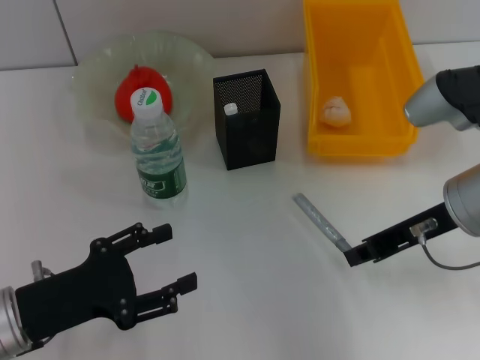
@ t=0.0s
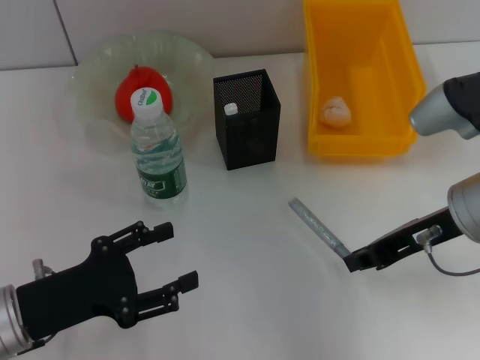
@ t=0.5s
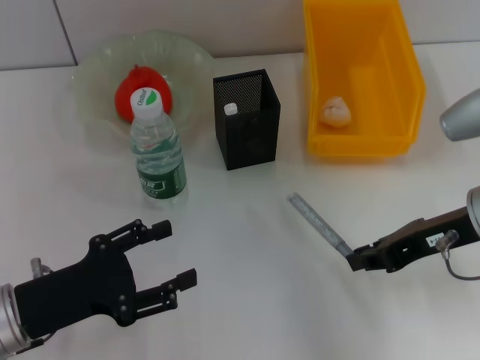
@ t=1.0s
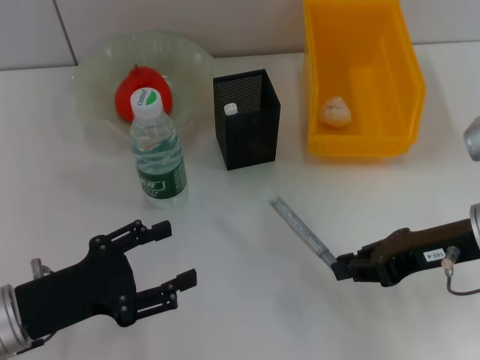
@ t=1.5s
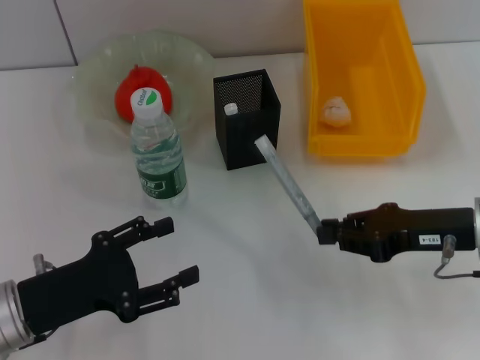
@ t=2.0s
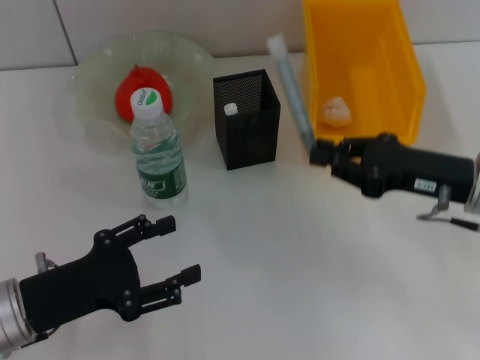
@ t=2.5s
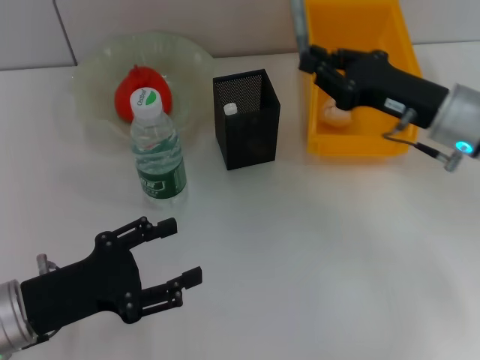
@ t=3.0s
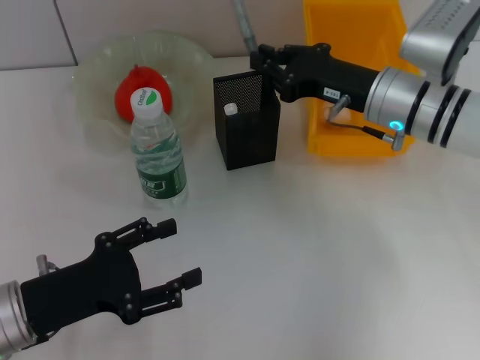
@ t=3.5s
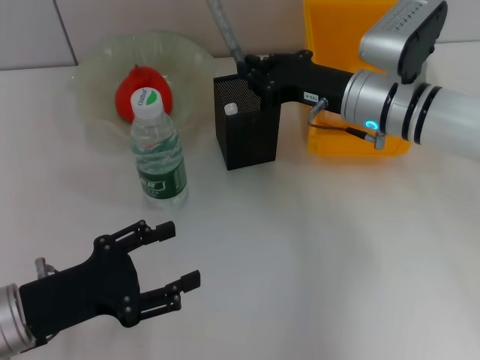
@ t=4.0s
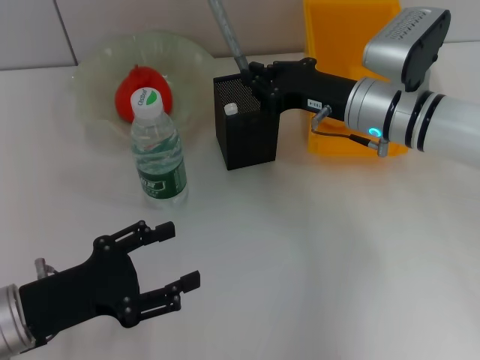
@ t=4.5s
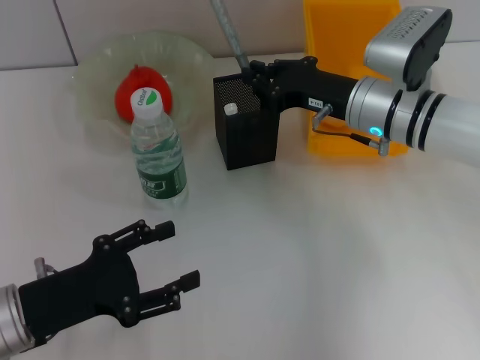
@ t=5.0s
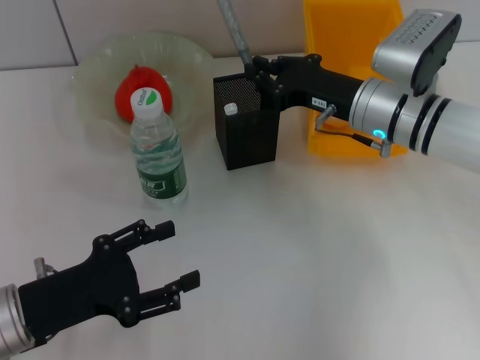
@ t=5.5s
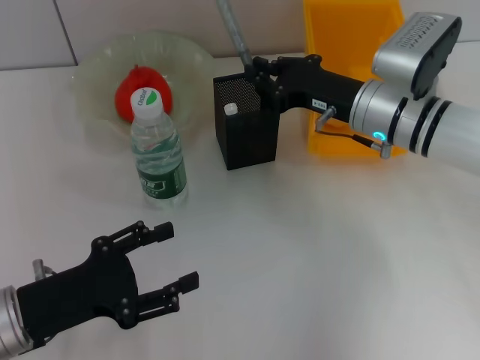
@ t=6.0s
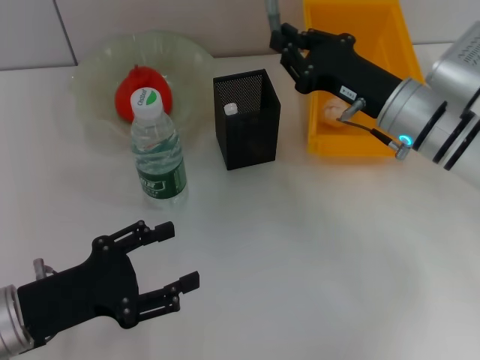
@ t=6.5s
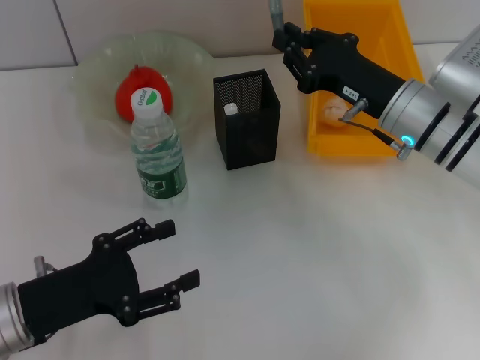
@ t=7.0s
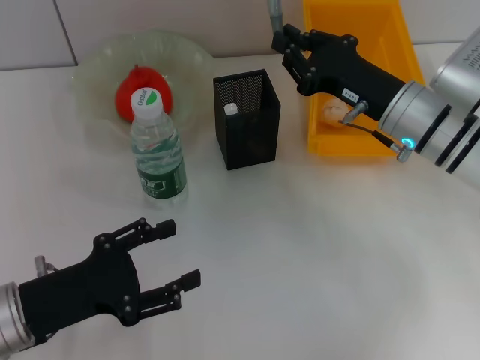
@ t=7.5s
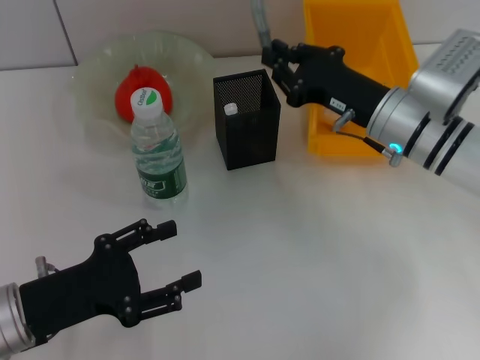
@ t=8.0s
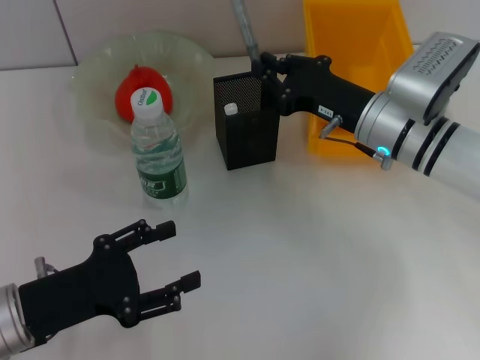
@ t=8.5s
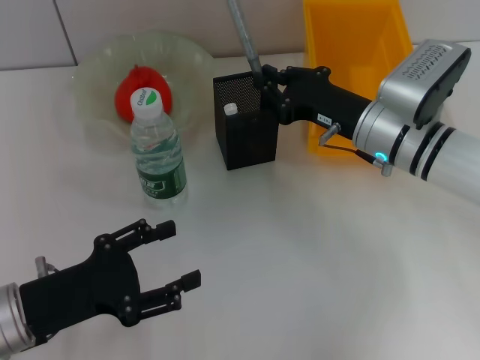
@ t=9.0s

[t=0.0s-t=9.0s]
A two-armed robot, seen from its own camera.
t=0.0s to t=2.0s: The right gripper shifts roughly 5 cm downward.
t=2.0s to t=4.5s: The right gripper goes about 15 cm forward and to the left.
t=4.5s to t=9.0s: The grippers stay close to where they were, moving slightly.

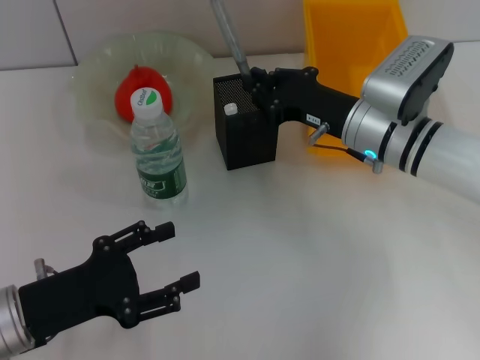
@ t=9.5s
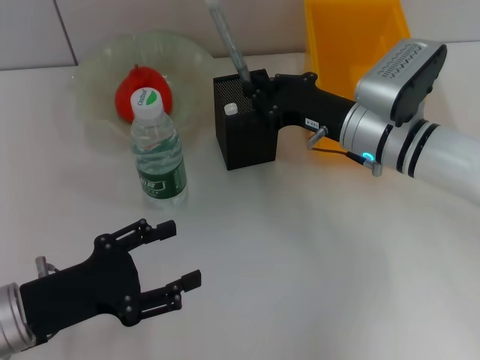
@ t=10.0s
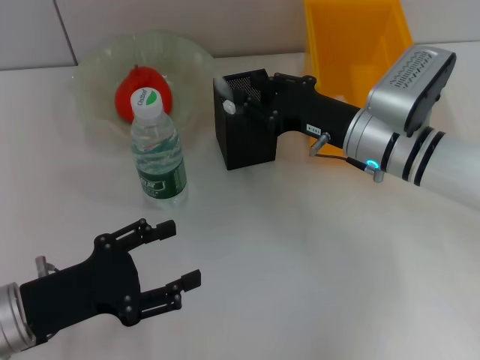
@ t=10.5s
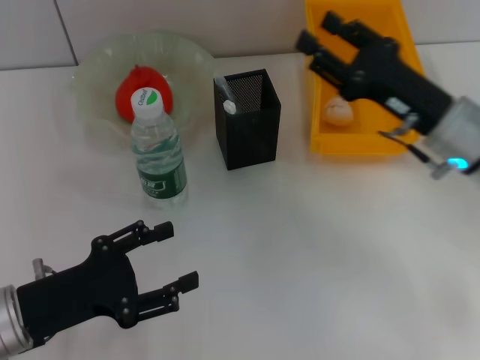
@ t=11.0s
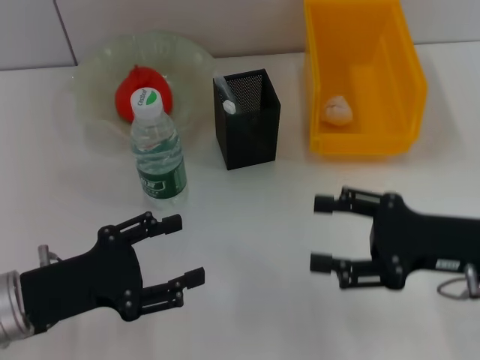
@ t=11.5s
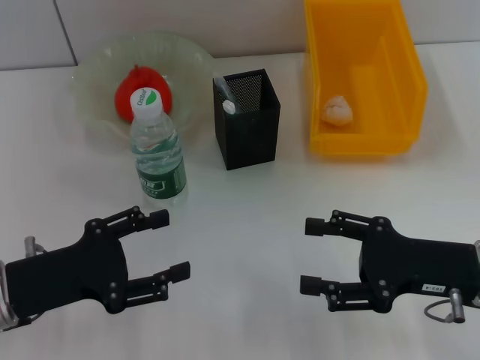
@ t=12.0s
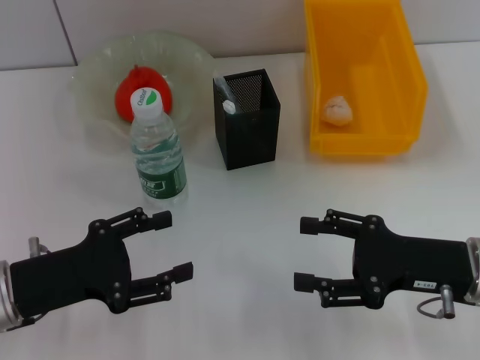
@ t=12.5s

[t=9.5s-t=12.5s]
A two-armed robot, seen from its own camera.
t=9.5s to t=11.0s: The right gripper goes some 10 cm to the right and backward, and opens up.
t=11.0s to t=12.5s: The right gripper goes about 10 cm backward, and opens up.

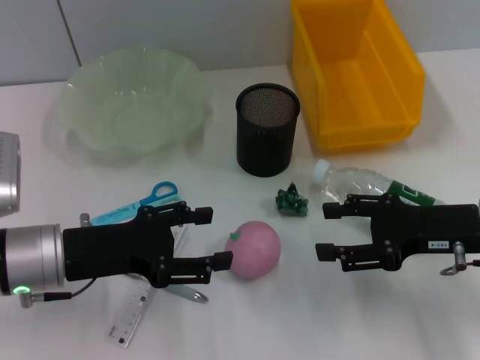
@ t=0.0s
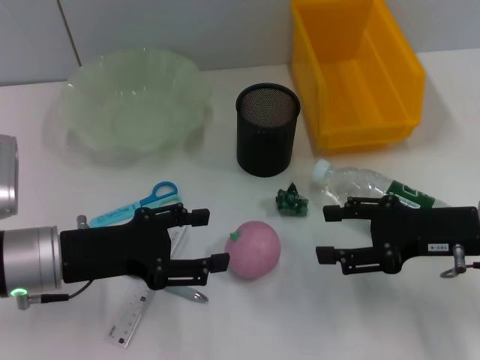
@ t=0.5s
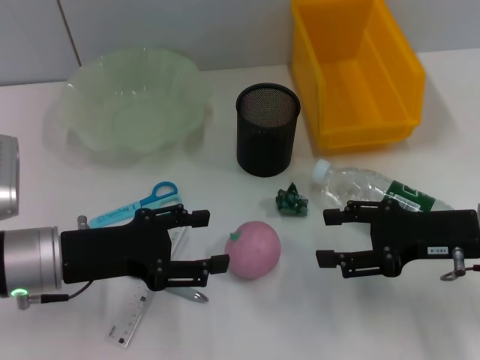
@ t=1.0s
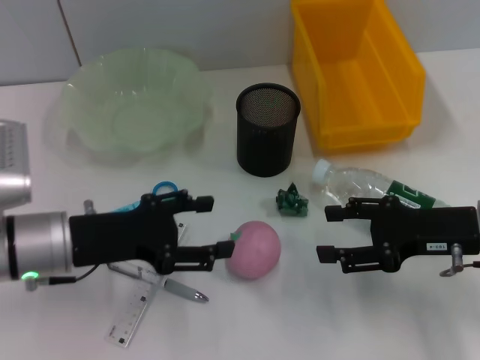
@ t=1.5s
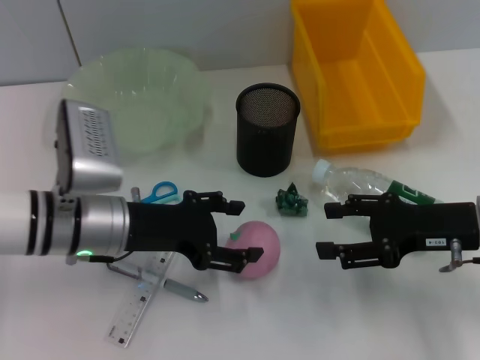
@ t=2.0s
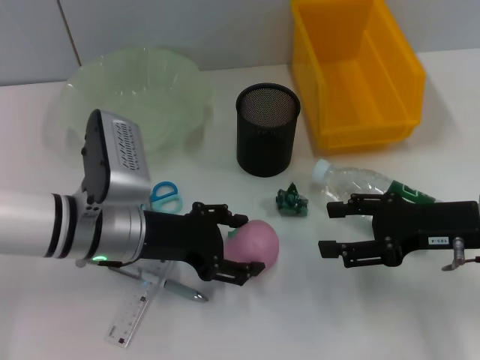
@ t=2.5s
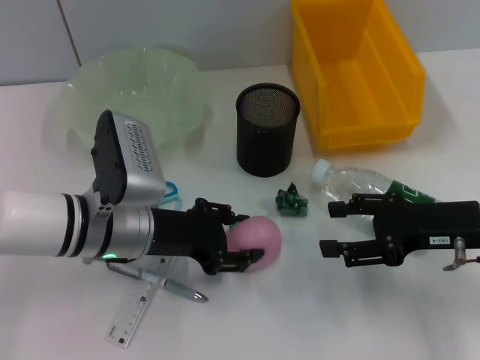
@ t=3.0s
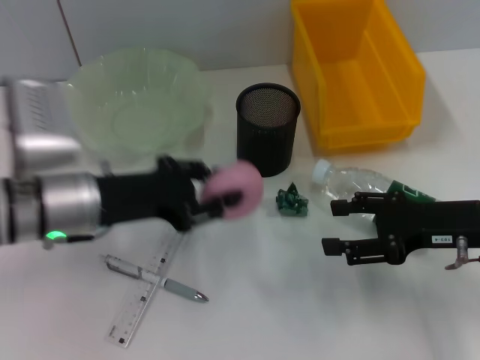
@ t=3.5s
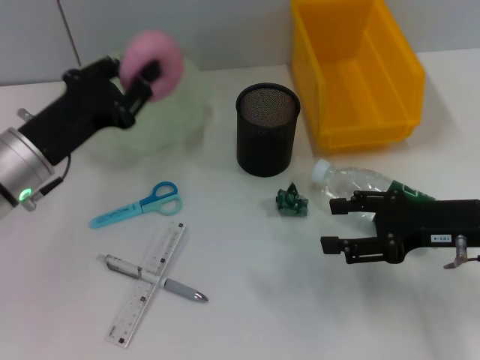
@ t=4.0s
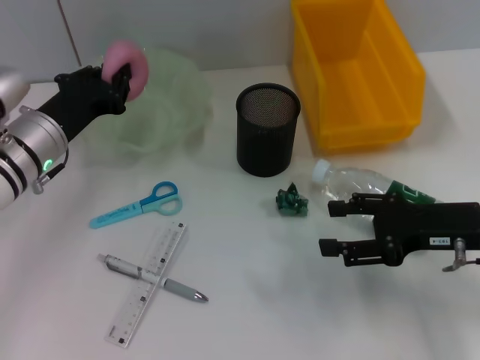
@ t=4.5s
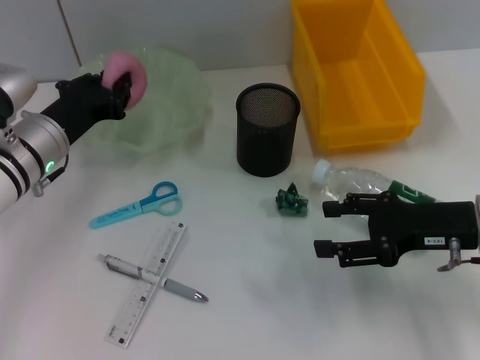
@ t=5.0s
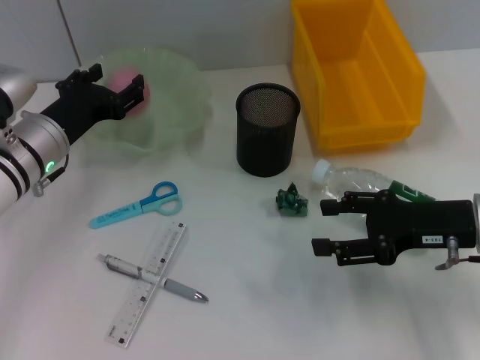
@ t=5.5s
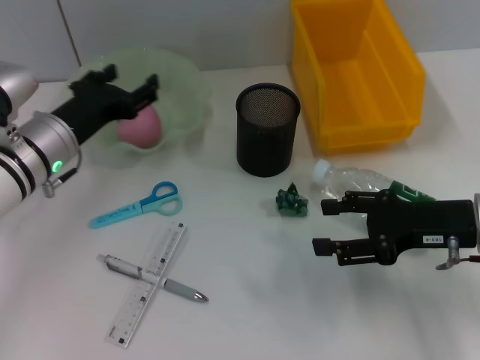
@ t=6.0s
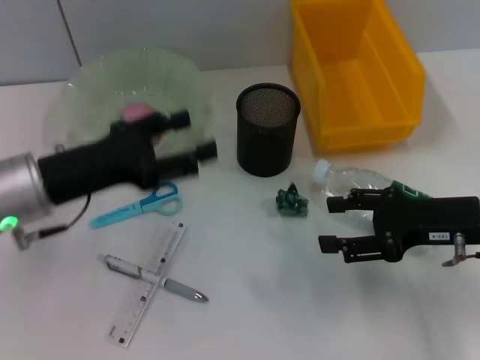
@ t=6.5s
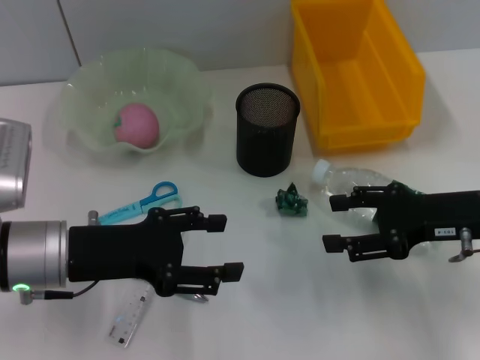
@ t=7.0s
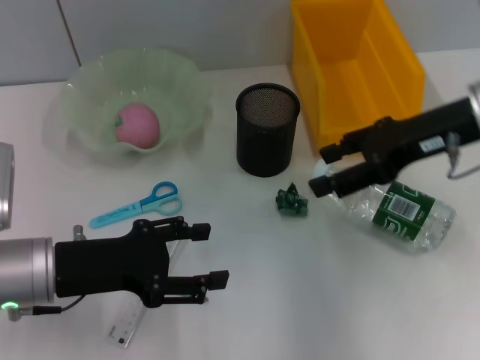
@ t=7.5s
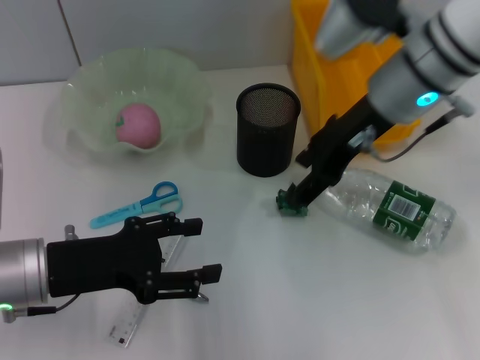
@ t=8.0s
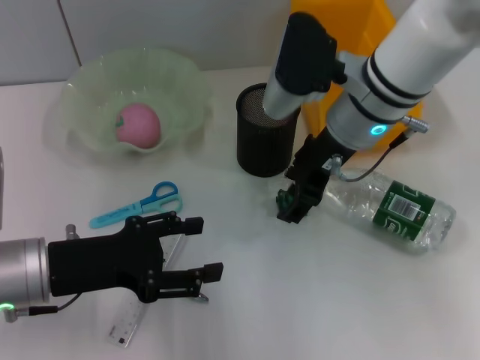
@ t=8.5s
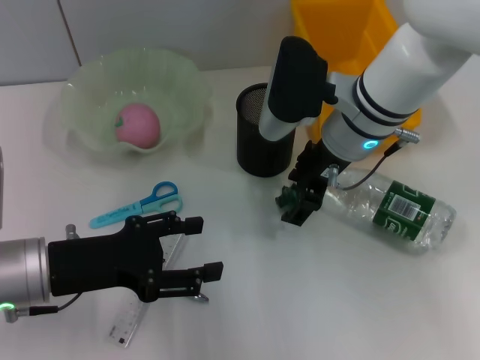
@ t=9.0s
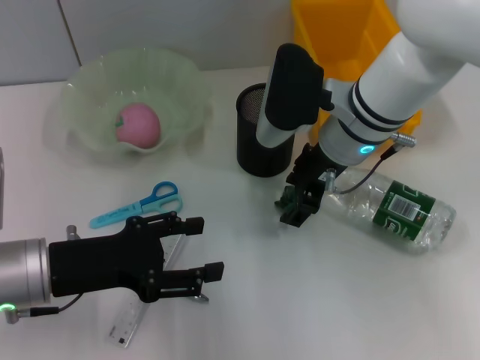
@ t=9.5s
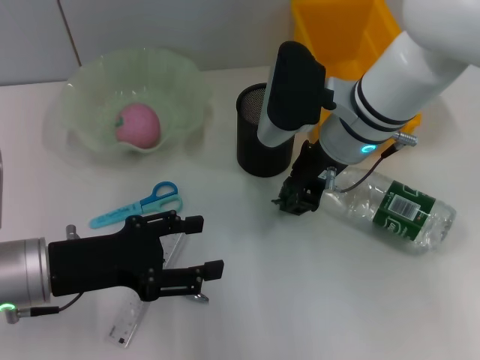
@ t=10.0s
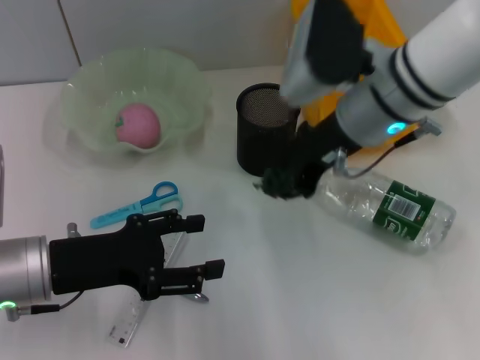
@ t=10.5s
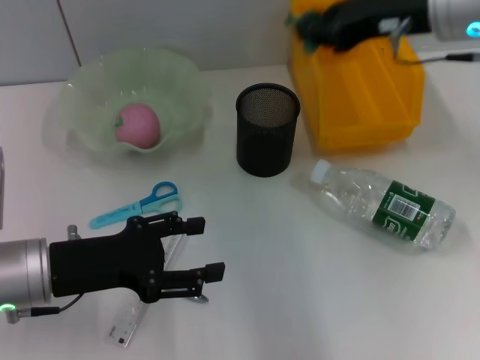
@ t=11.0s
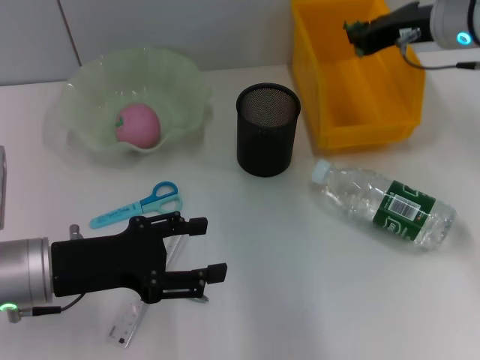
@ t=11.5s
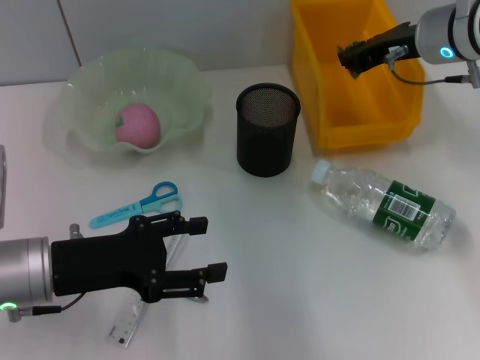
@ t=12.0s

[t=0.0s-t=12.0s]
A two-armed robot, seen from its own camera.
Step, t=0.0s to t=3.0s: Grab the peach with the left hand.
Step, t=3.5s to t=5.5s: Place the peach into the fruit bowl with the left hand.
Step, t=6.0s to t=9.5s: Grab the plastic with the right hand.
t=0.0s to t=2.0s: The left gripper moves to the right, approximately 5 cm.
t=2.0s to t=4.0s: The left gripper moves to the left, about 5 cm, and closes.
t=4.0s to t=6.0s: The left gripper ends up about 5 cm from where it was, and opens.
t=6.0s to t=8.0s: The left gripper is displaced backward by roughly 10 cm, while the right gripper heads upward, to the left and forward, covering some 20 cm.
t=8.0s to t=10.0s: The right gripper travels downward by roughly 5 cm.
t=10.0s to t=12.0s: The right gripper shifts approximately 10 cm to the right, and closes up.

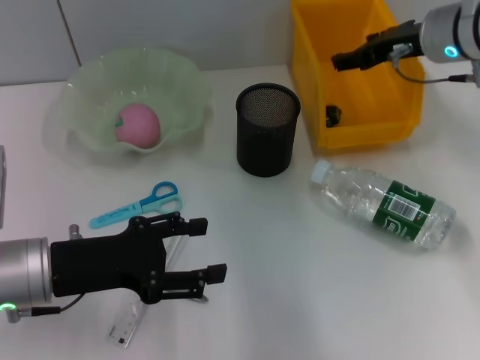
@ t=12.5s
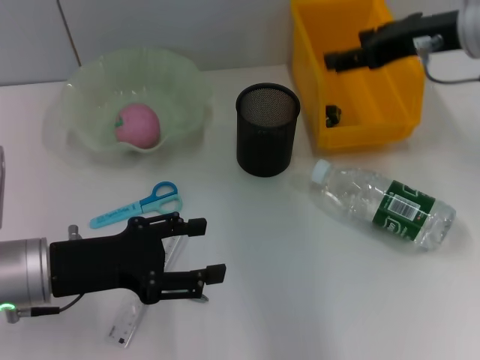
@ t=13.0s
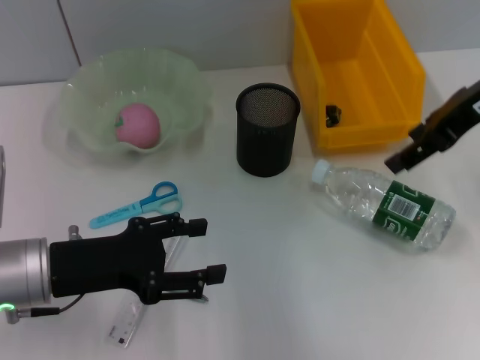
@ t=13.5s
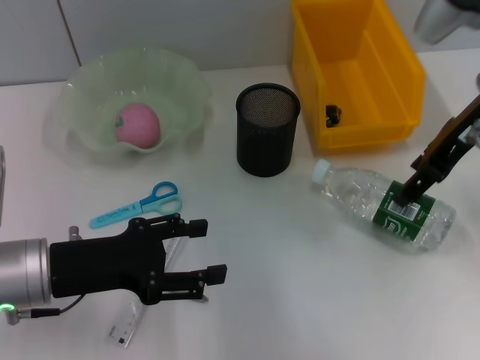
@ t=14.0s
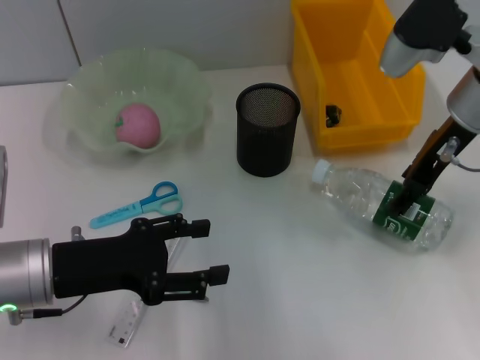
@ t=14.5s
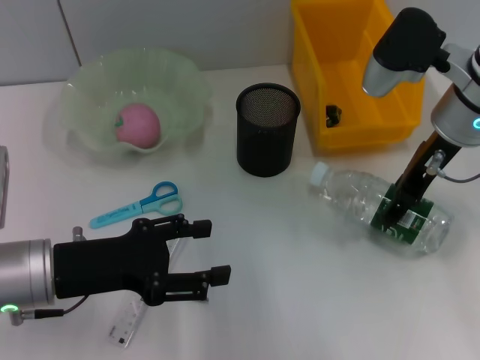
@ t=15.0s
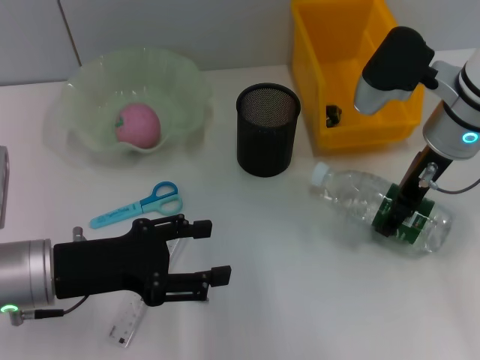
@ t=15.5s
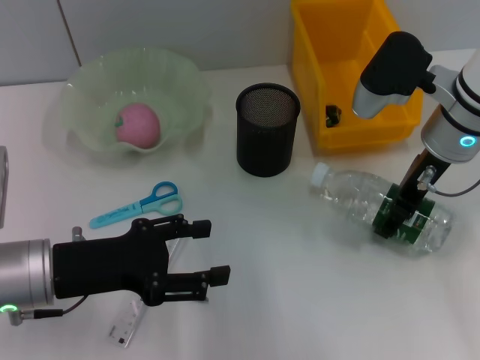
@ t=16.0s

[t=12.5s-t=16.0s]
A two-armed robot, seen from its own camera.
t=12.5s to t=14.5s: The right gripper heads backward, covering some 5 cm.
t=14.5s to t=16.0s: The grippers make only small movements.
